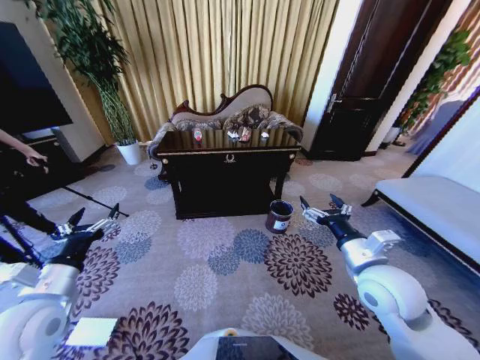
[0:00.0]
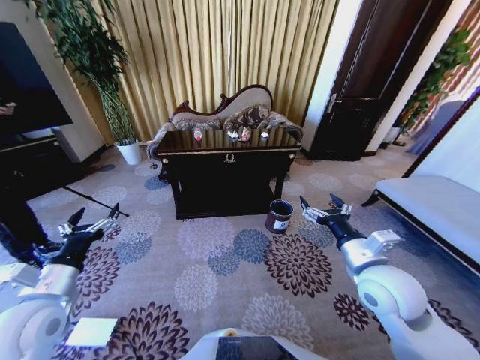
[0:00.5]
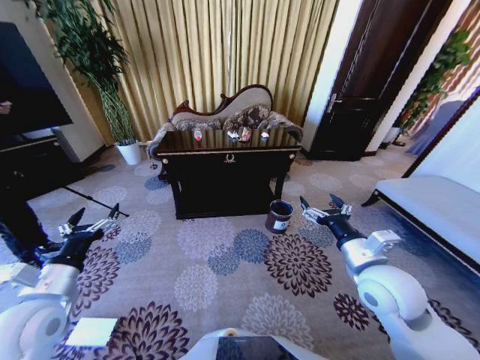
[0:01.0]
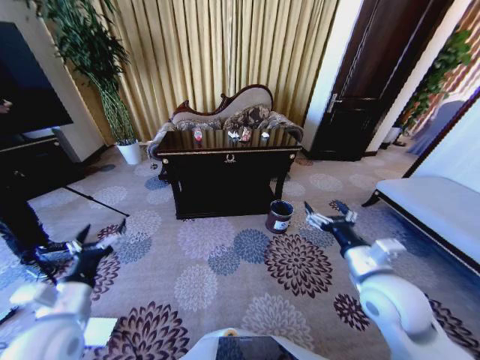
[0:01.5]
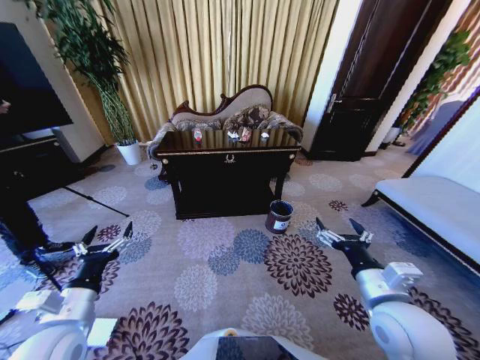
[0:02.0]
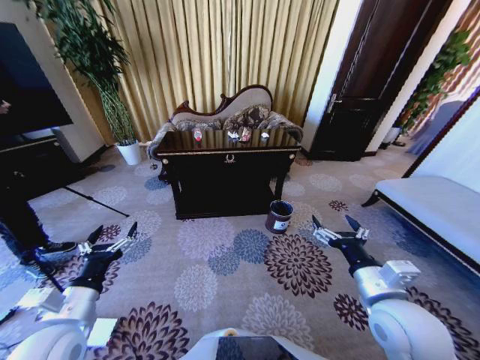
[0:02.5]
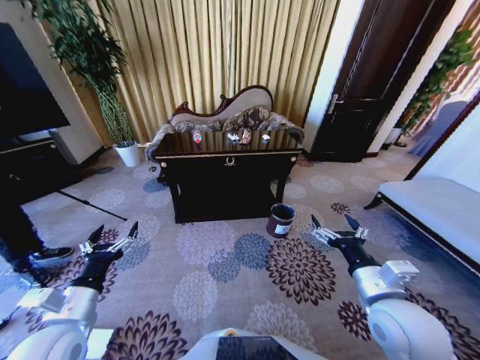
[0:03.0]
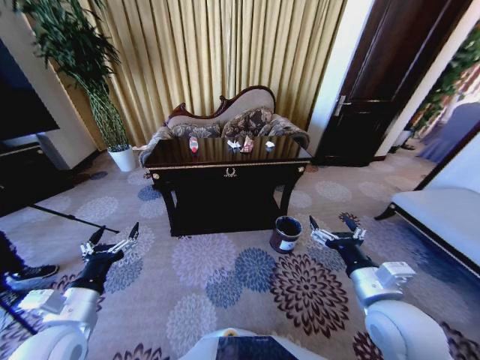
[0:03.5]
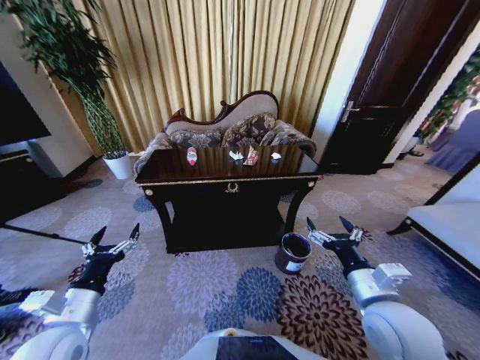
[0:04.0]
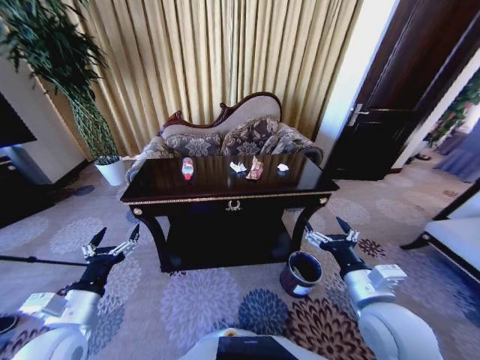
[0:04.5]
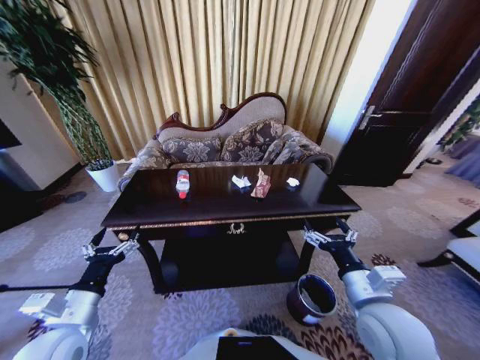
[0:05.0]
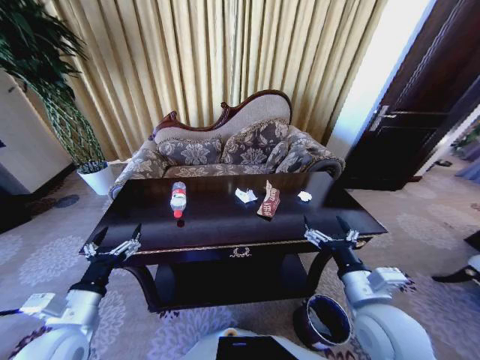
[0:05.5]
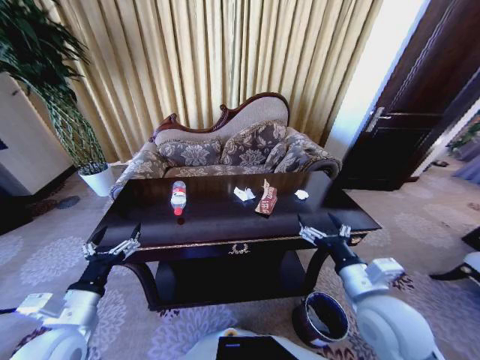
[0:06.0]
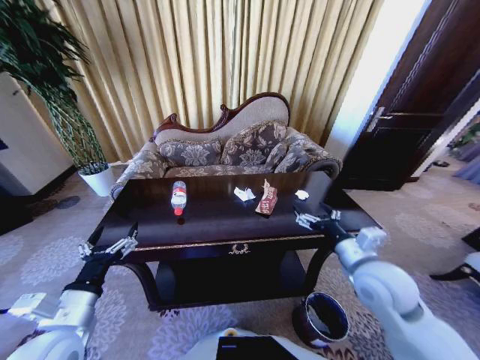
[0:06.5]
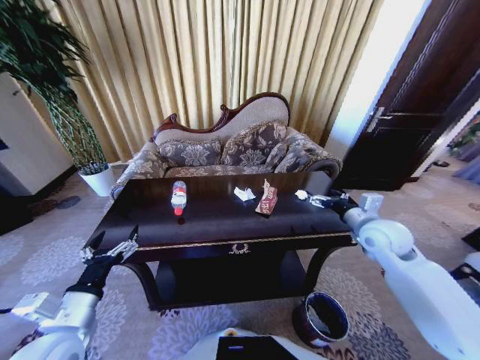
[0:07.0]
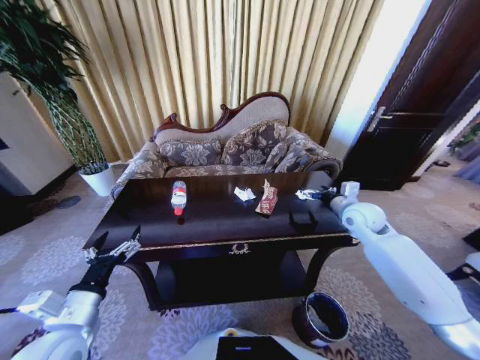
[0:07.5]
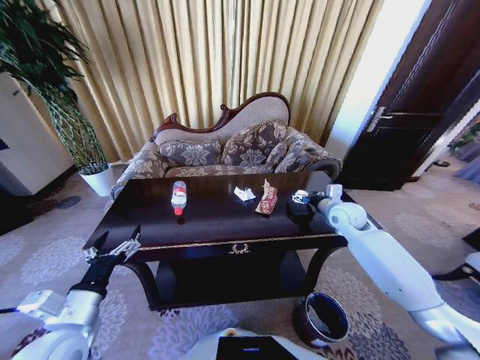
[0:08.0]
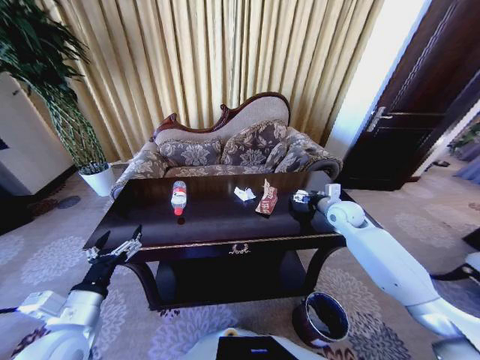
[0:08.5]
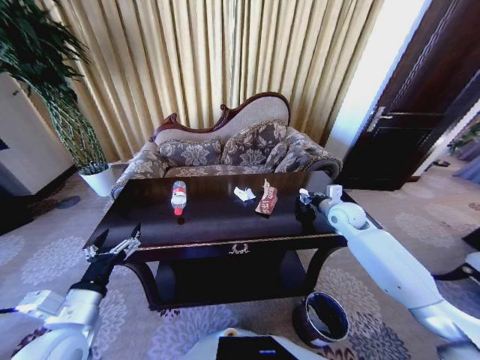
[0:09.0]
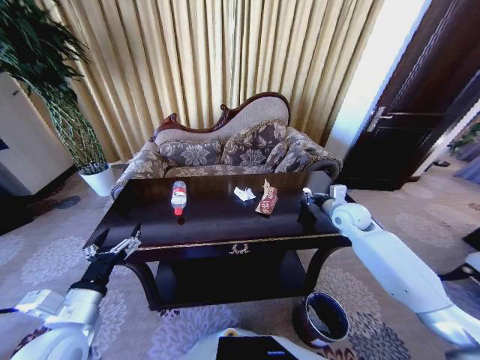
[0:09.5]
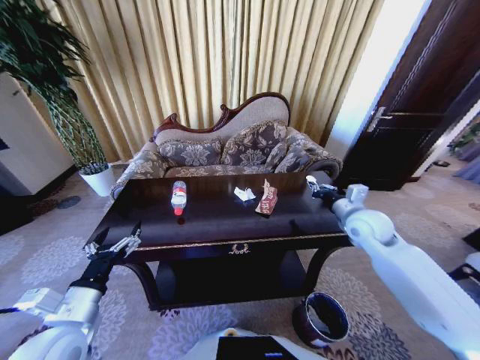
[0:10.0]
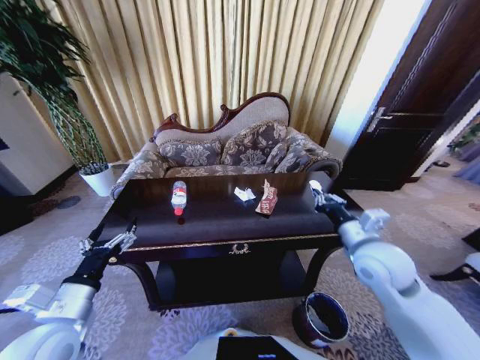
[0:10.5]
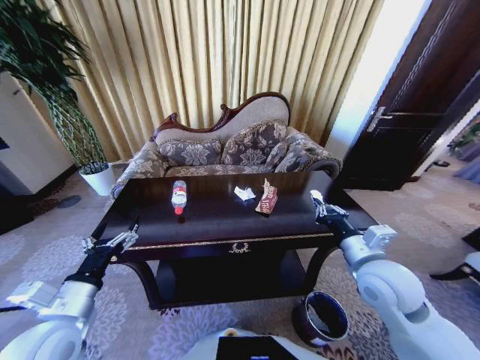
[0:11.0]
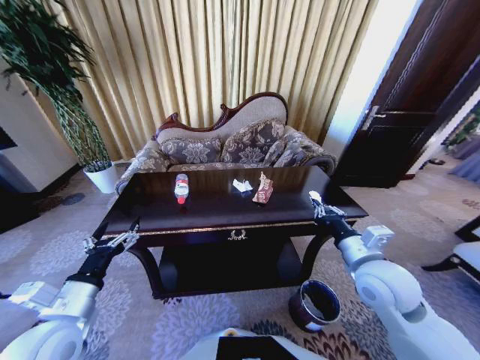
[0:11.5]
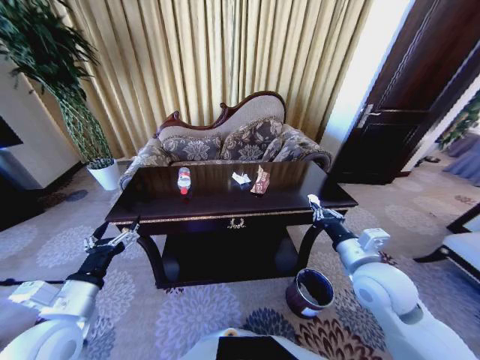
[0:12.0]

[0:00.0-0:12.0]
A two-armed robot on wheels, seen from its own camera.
Task of the whole recording: Move to the front of the table and place the trash on the table into the trash bin.
0:06.0 to 0:08.0: The right gripper heads forward, covering some 25 cm.
0:08.0 to 0:10.0: The right gripper is displaced backward by approximately 5 cm, and closes its fingers.
0:10.0 to 0:12.0: The right gripper is displaced backward and to the left by about 15 cm.

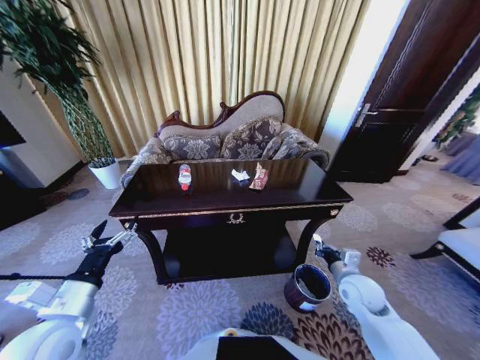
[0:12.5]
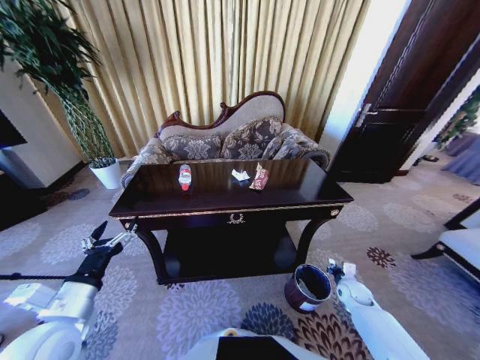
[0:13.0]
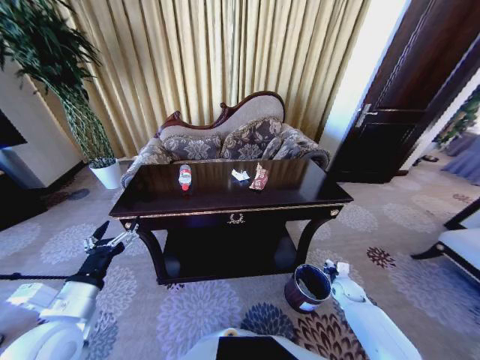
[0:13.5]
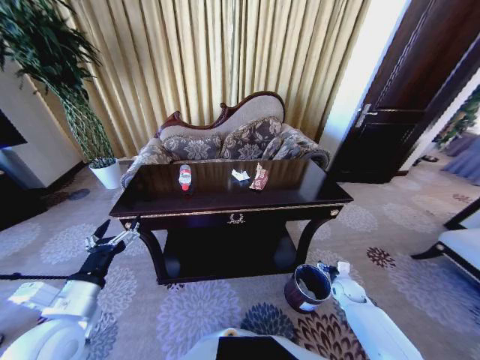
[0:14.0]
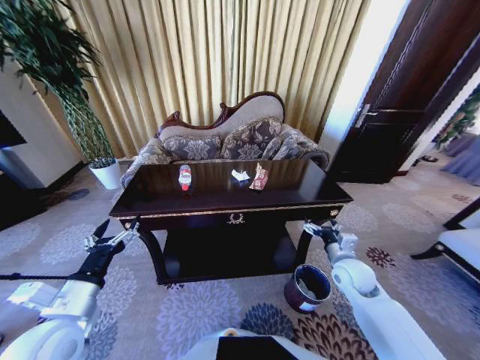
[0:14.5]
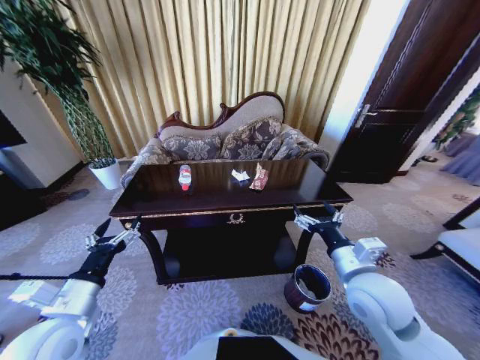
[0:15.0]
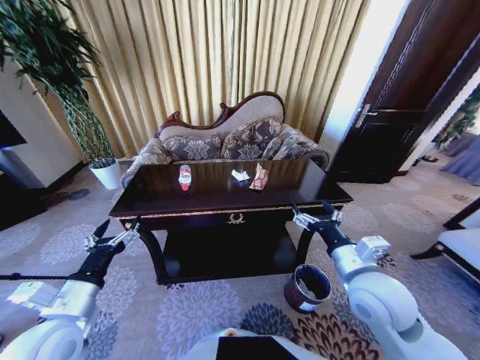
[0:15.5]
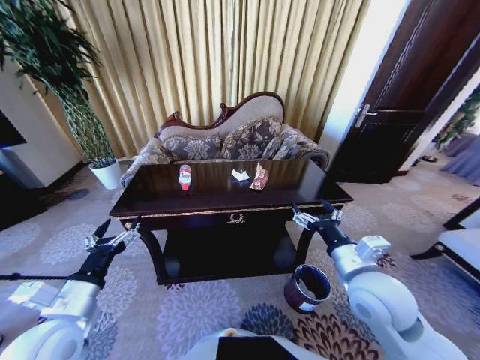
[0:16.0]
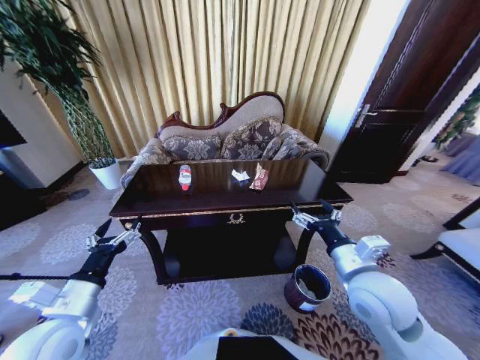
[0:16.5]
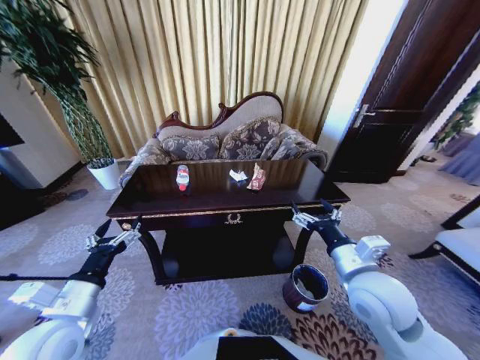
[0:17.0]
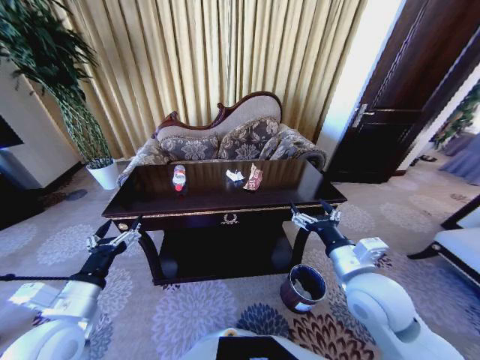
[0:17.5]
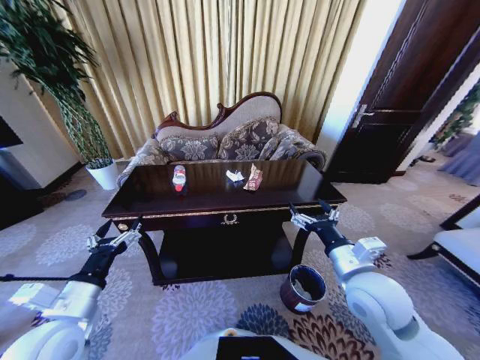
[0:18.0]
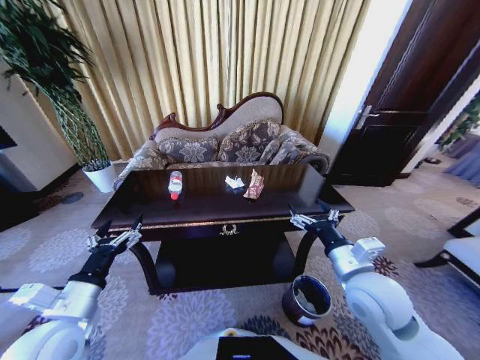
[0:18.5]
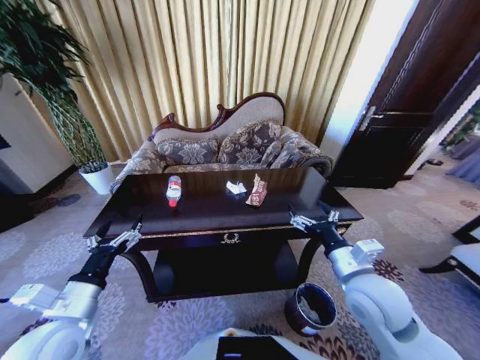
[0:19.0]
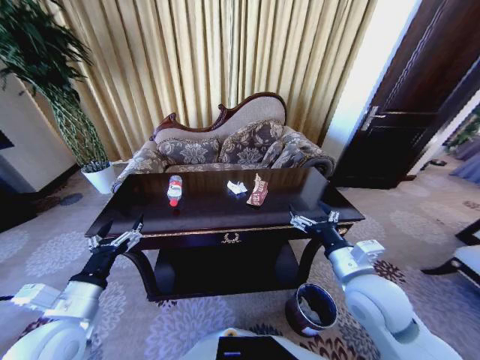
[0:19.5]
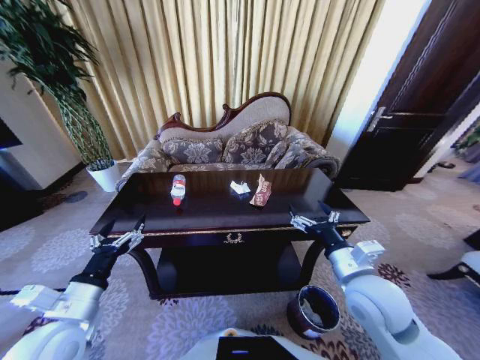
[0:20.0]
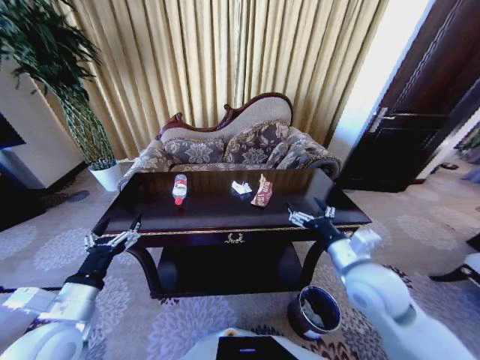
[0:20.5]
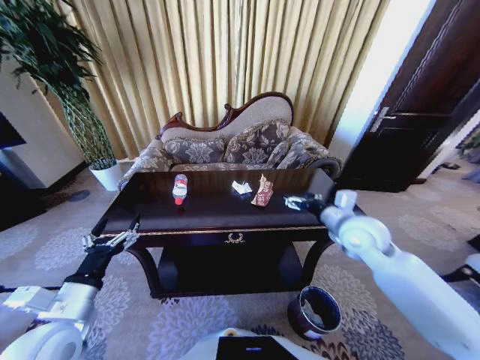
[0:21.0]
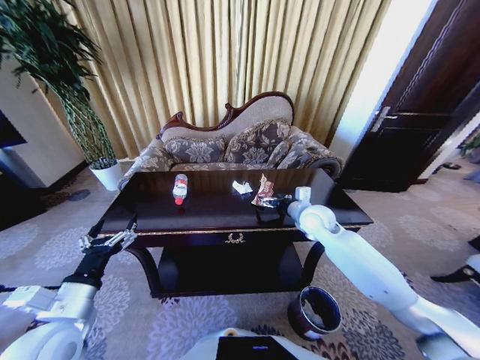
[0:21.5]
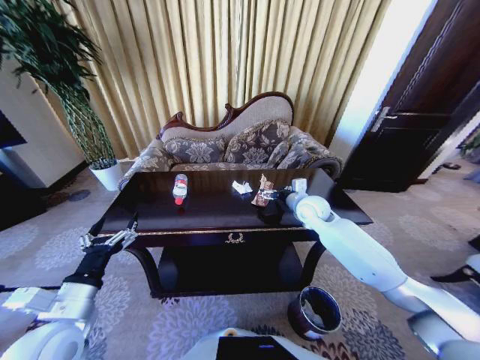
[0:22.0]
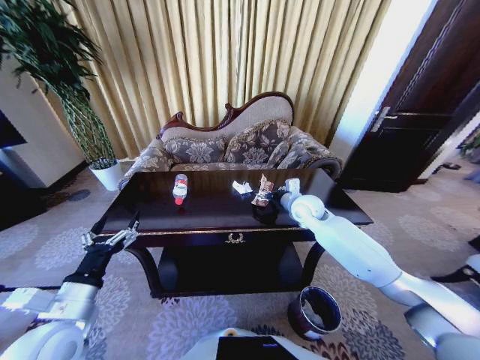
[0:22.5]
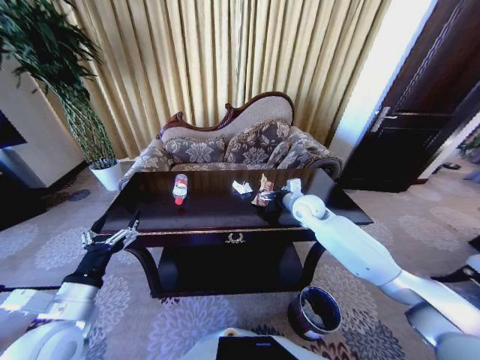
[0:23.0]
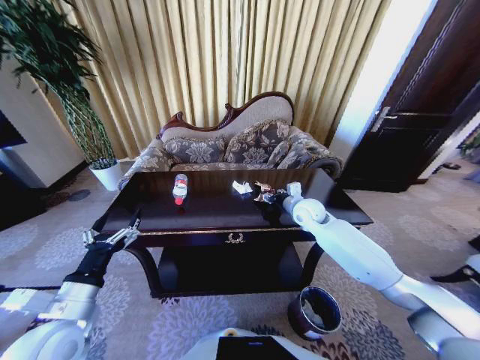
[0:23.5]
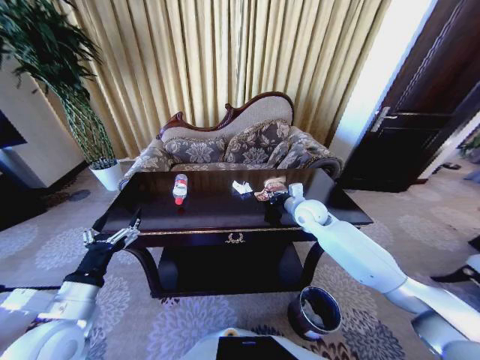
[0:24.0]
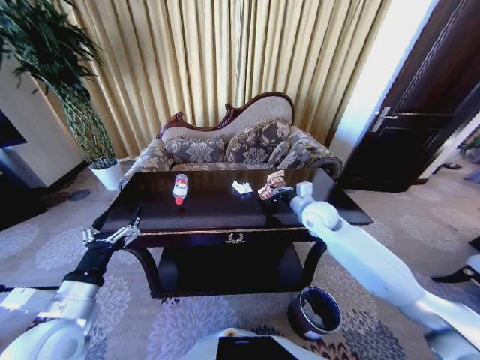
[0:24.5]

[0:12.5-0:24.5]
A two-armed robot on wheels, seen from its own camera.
Task of the whole recording: Move to the front of the table and place the trash on the table into the trash bin.
0:12.5 to 0:14.5: The right gripper goes downward and returns, approximately 15 cm each way, and opens its fingers.
0:14.5 to 0:16.5: The right gripper travels upward, backward and to the left by about 15 cm.
0:20.5 to 0:22.5: The right gripper goes some 25 cm forward.
0:22.5 to 0:24.5: The right gripper moves about 5 cm, and closes.

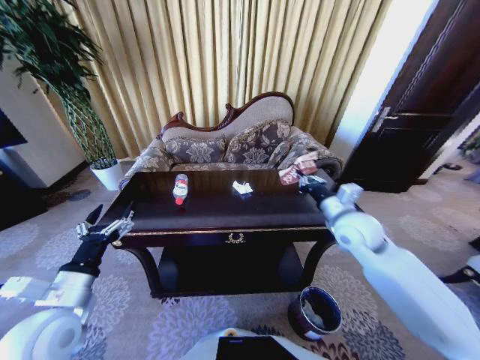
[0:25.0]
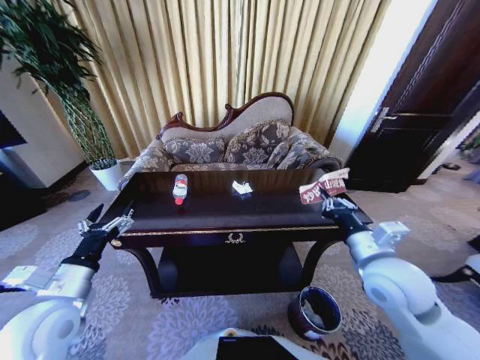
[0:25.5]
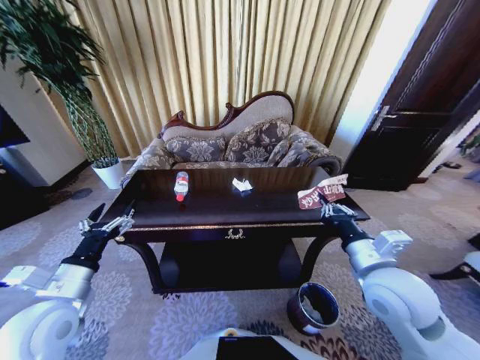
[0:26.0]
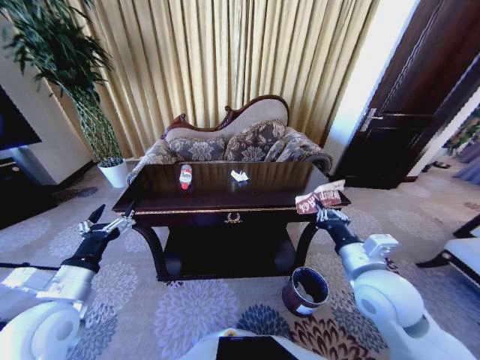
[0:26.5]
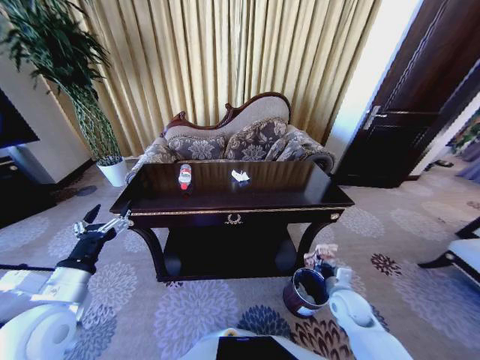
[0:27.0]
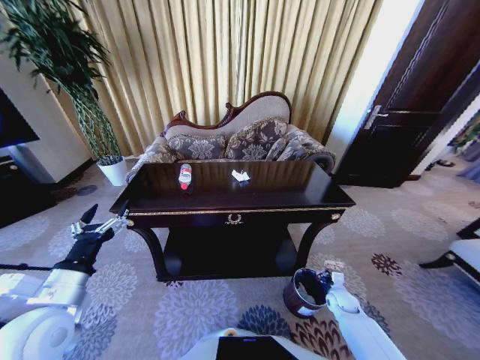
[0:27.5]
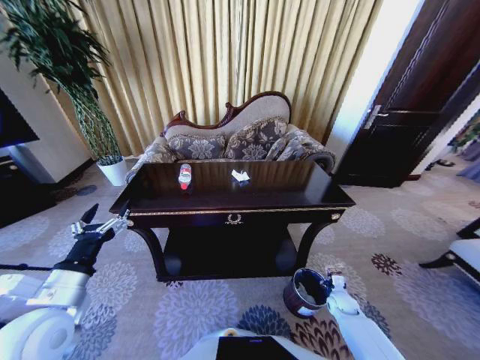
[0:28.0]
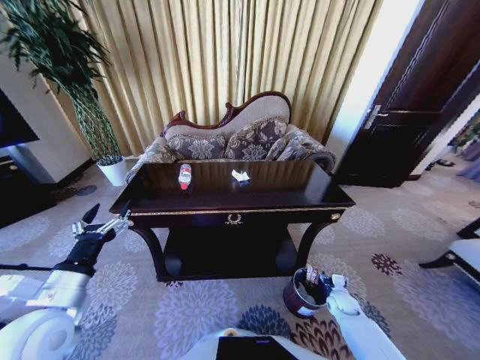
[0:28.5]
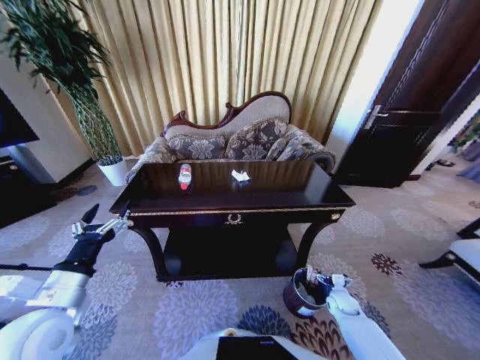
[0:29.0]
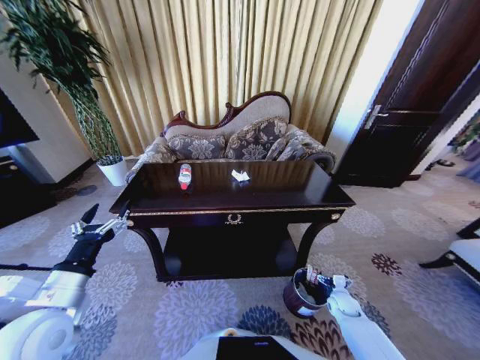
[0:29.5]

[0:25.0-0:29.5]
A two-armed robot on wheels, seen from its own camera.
Task of the whole recording: Move to the front of the table and place the trash on the table into the trash bin.
0:25.0 to 0:27.0: The right gripper travels downward and backward by roughly 25 cm.
0:27.0 to 0:29.5: The right gripper moves downward and to the right, some 15 cm, and opens up.
